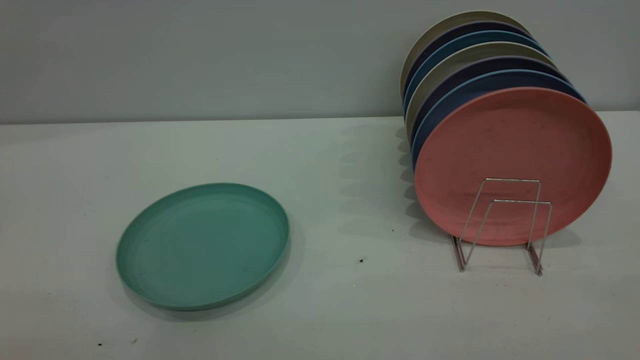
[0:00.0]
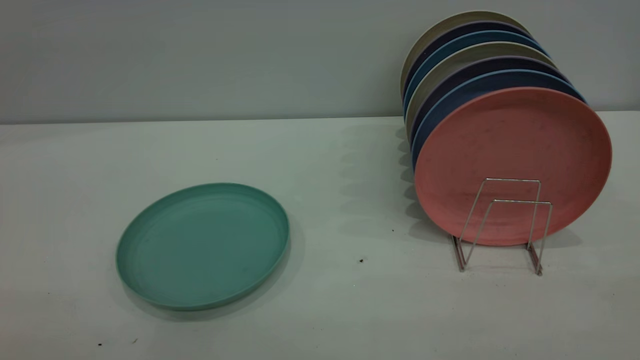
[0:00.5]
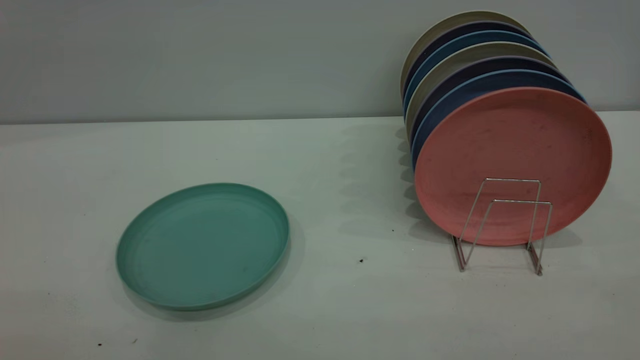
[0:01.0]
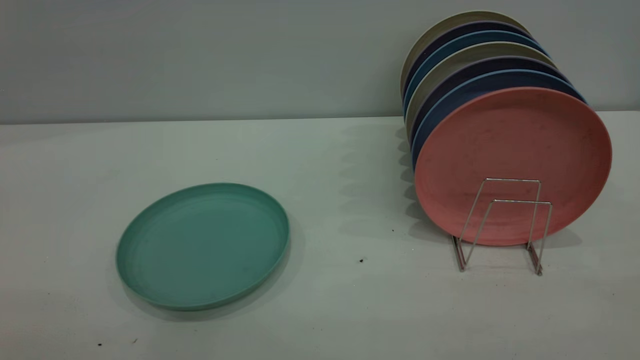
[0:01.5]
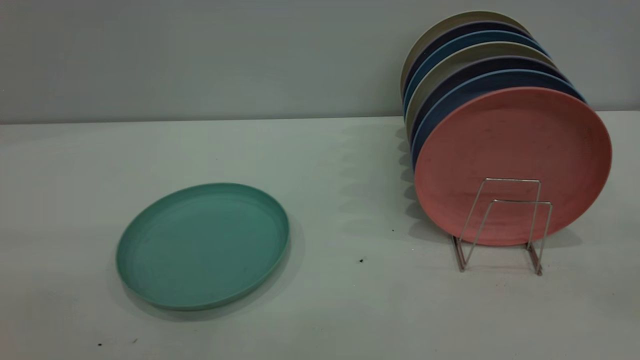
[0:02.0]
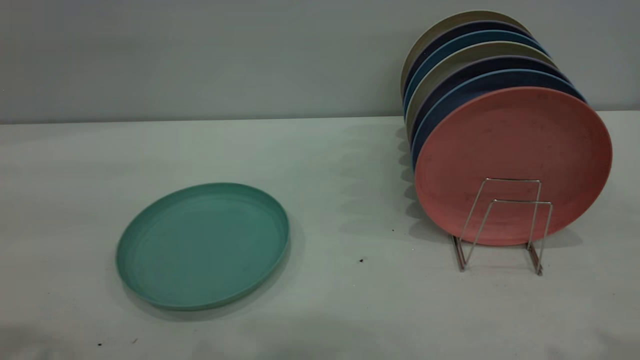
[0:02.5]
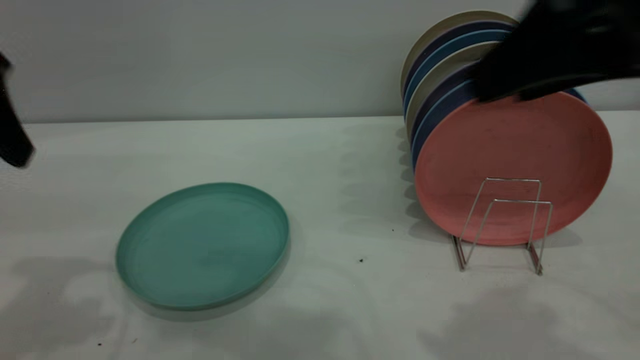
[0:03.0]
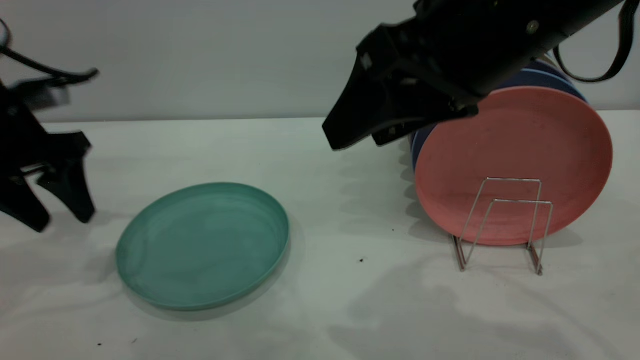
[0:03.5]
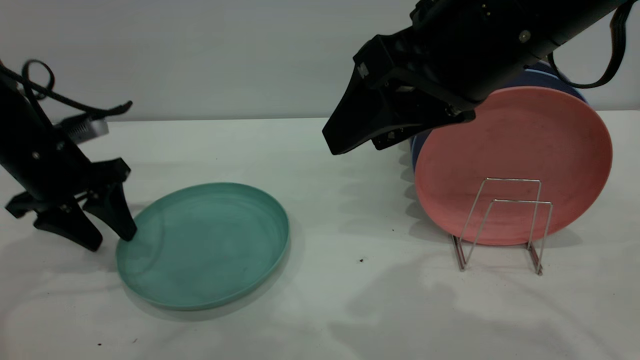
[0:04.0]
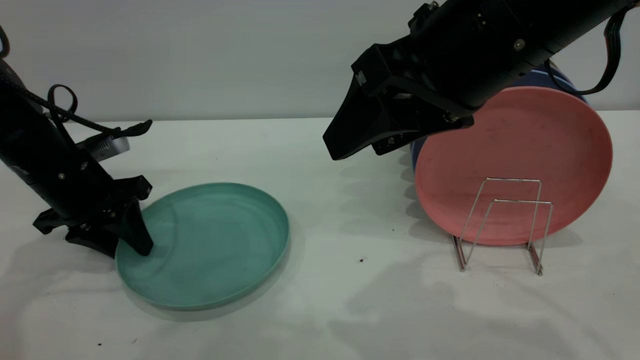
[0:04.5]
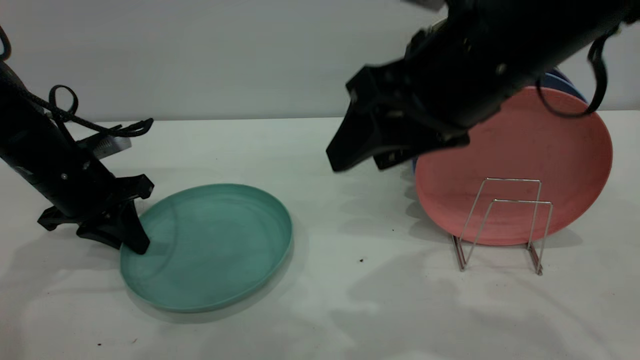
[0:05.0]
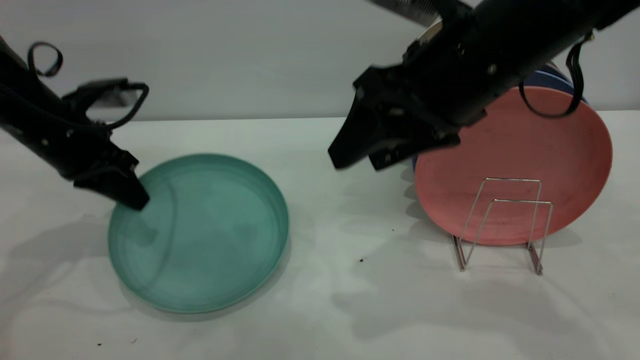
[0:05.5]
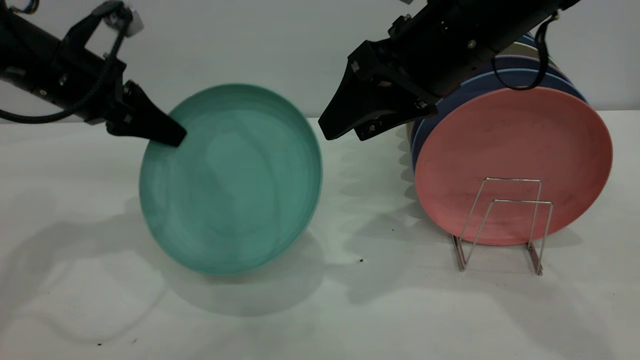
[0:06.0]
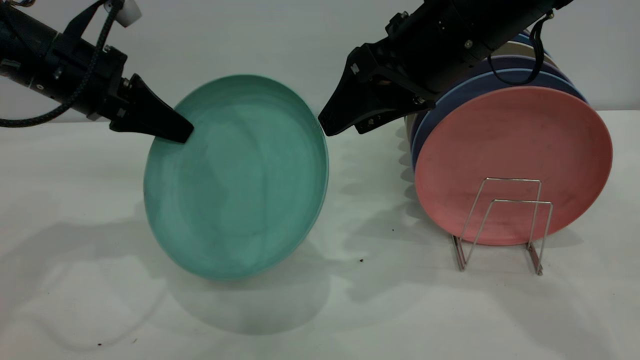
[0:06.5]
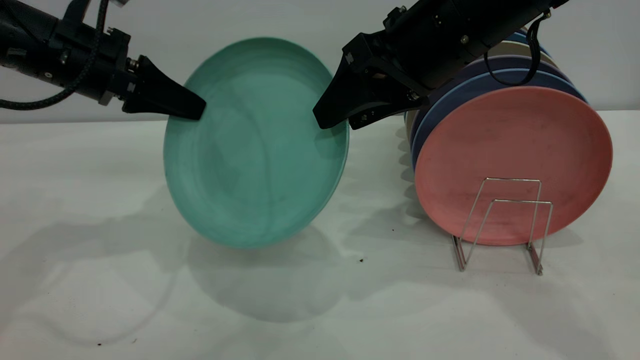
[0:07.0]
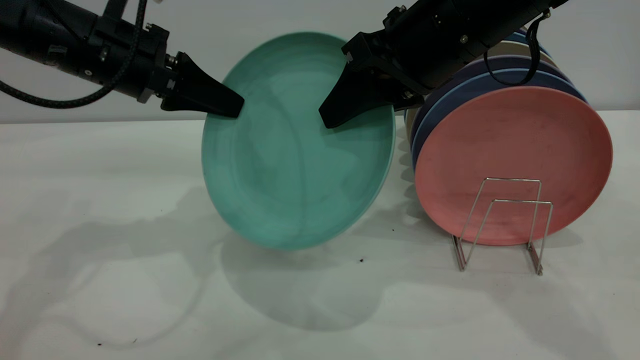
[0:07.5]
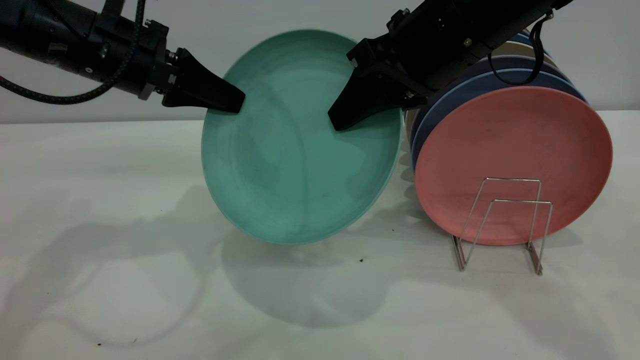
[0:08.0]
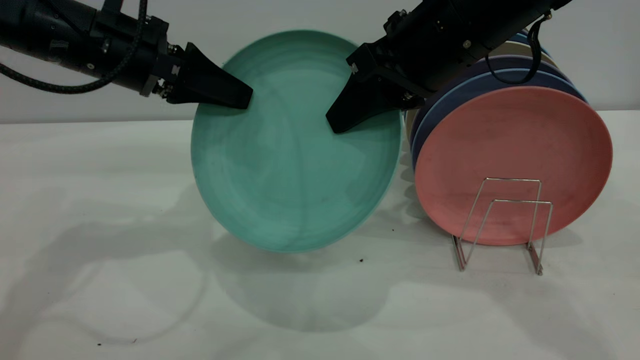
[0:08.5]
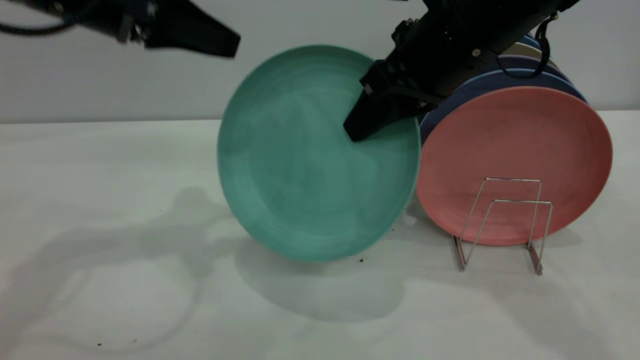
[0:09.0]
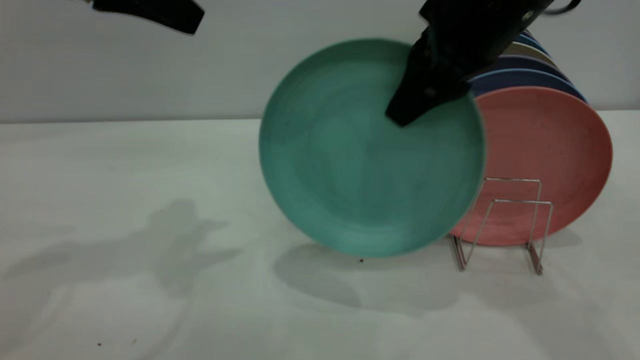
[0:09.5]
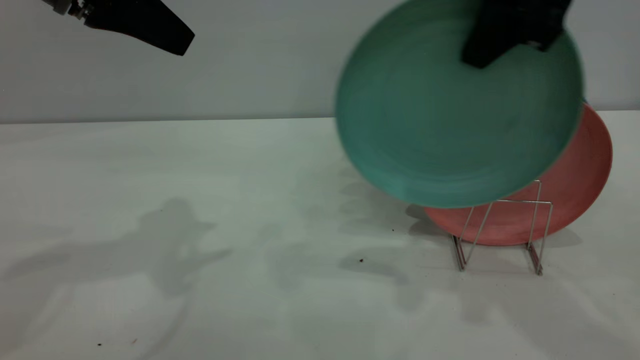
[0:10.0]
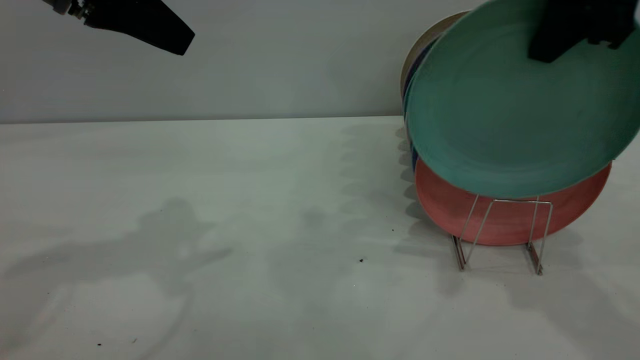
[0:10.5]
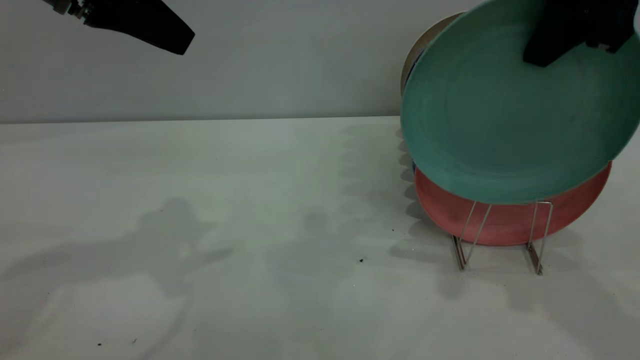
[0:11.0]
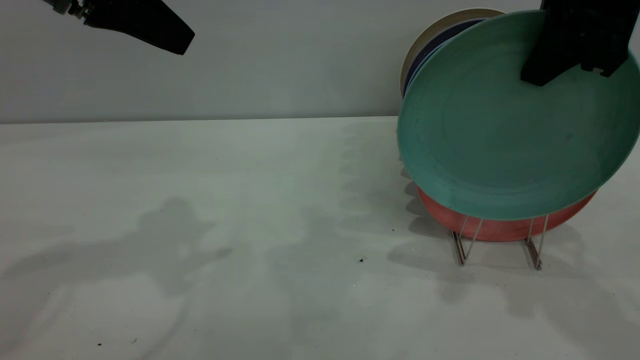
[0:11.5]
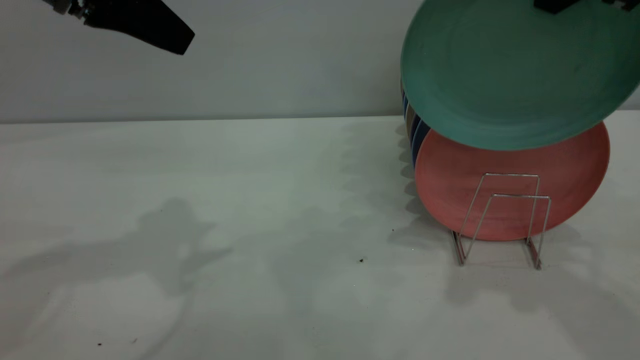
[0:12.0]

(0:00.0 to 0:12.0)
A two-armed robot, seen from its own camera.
Task of the whole recording: the left gripper grasp the green plate, the left gripper pass the green plate to the right gripper, and the right gripper place the green plate on the plate rack.
Step, 0:00.0 - 0:06.0: Pick up the plate with the left gripper.
Step, 0:06.5 - 0:09.0: Pass the plate from the left gripper to the right gripper.
0:02.0 - 0:04.0: The left gripper goes approximately 40 cm forward and downward. The right gripper moves forward, to the left and downward, roughly 30 cm.
0:04.0 - 0:06.0: The left gripper shifts approximately 10 cm upward, and closes its fingers. The right gripper is displaced forward by about 10 cm.
0:06.0 - 0:08.0: The left gripper goes approximately 5 cm to the right. Meanwhile the right gripper closes up.
0:08.0 - 0:10.0: The left gripper travels upward by roughly 10 cm, and opens its fingers. Meanwhile the right gripper heads upward and to the right, covering about 10 cm.
0:10.0 - 0:12.0: The right gripper changes place by about 5 cm.

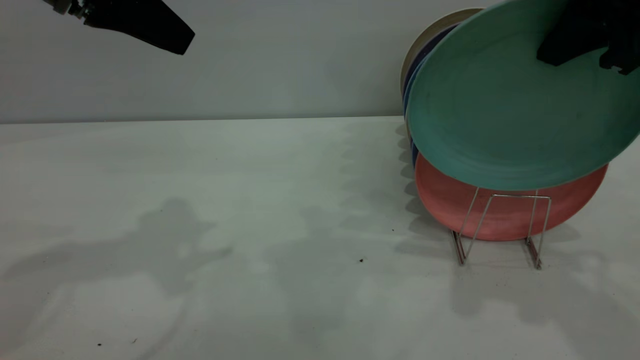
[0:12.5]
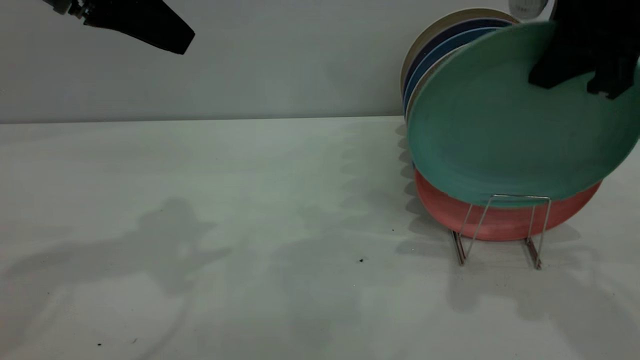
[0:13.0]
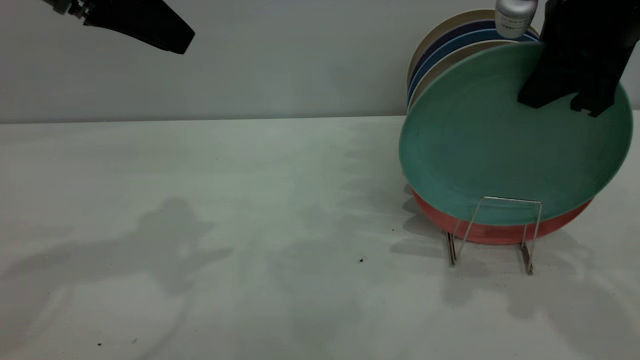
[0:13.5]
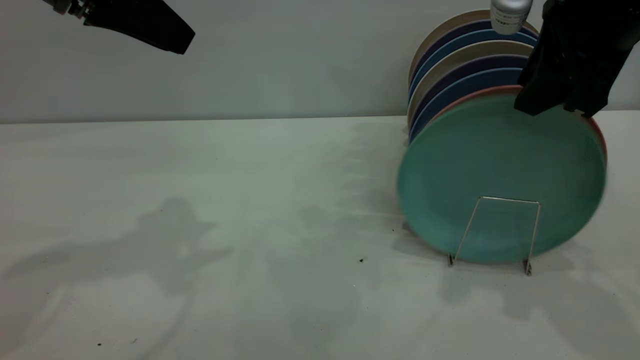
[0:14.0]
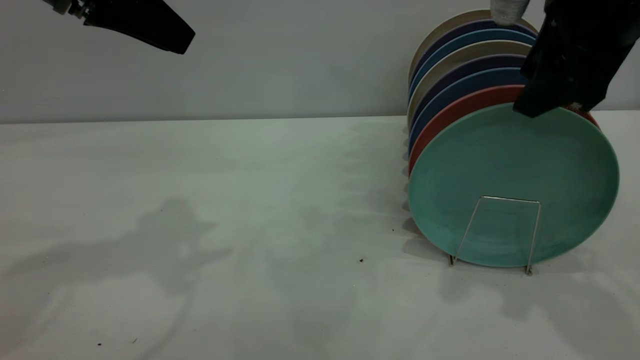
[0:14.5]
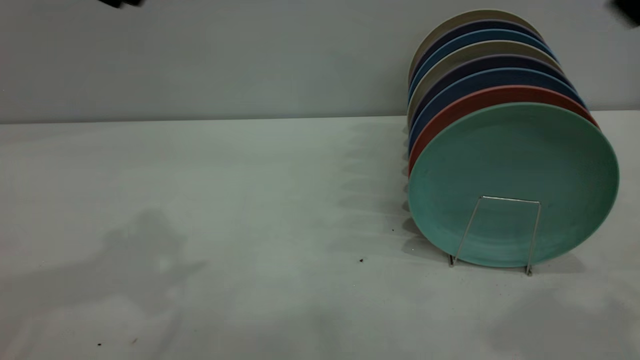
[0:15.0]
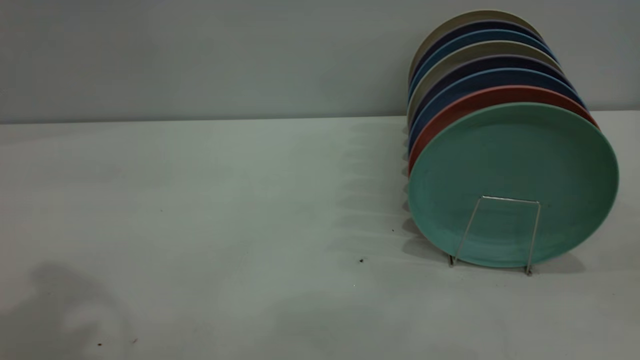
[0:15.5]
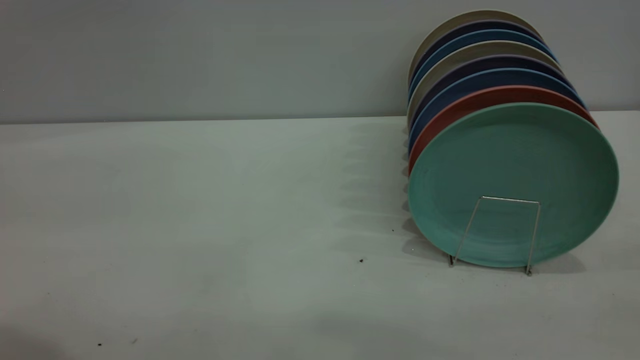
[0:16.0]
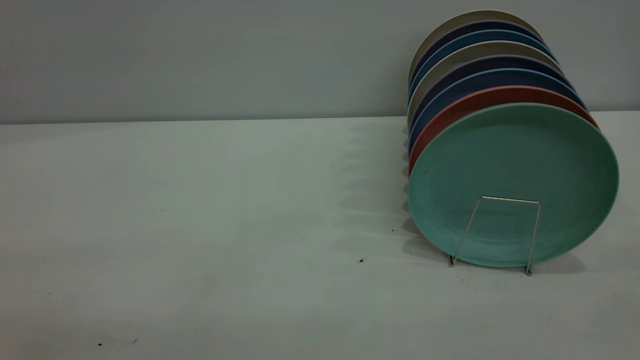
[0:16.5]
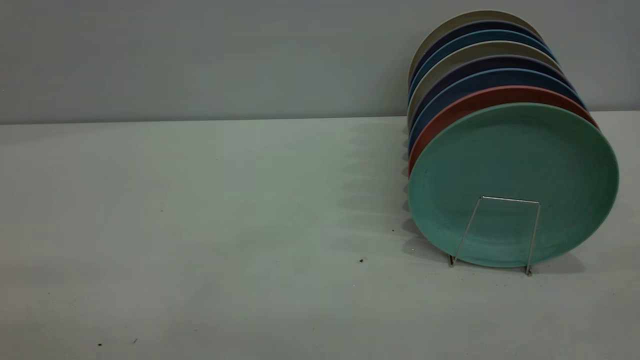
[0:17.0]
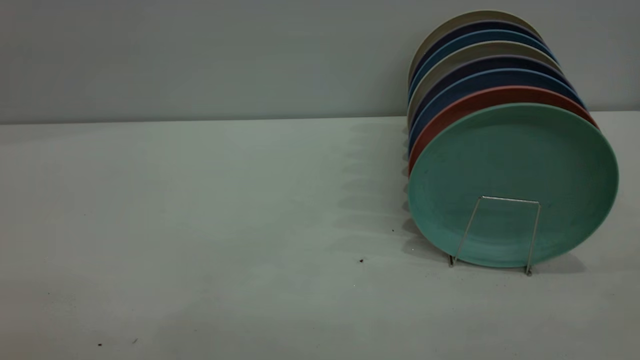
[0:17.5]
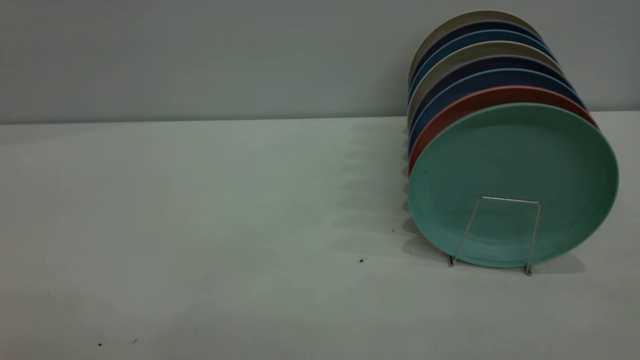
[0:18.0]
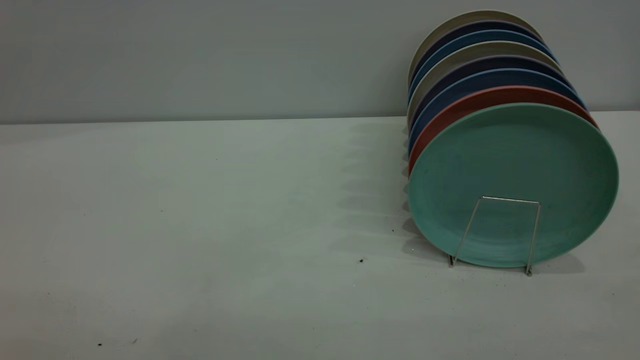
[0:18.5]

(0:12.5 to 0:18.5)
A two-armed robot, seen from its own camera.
Task of the whole recording: the left gripper grasp the green plate, the left gripper pass the green plate to the right gripper, and the right gripper place the green plate on the plate rack.
Step, 0:12.5 - 0:14.5: Place the plate on the shelf.
0:12.5 - 0:14.5: The right gripper opens.
0:14.5 - 0:16.5: The grippers both shift backward by some 30 cm.
